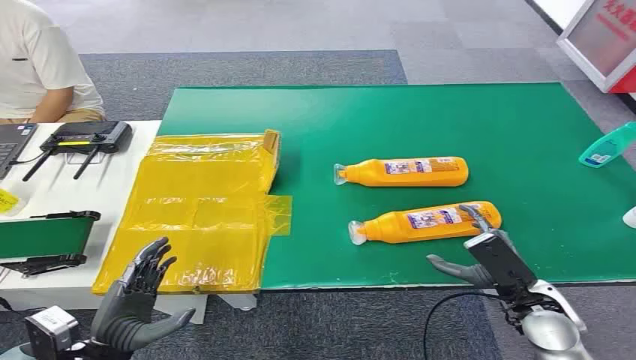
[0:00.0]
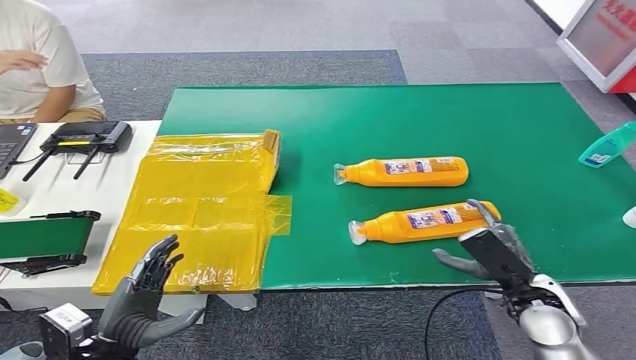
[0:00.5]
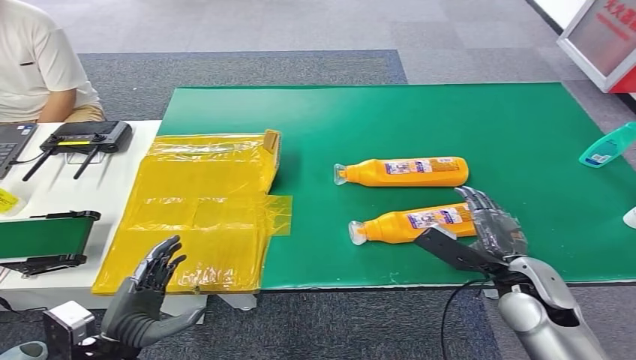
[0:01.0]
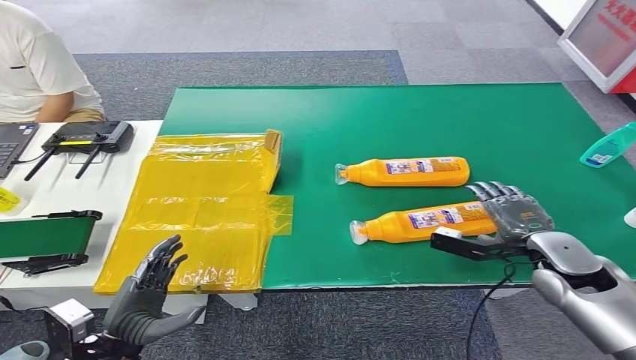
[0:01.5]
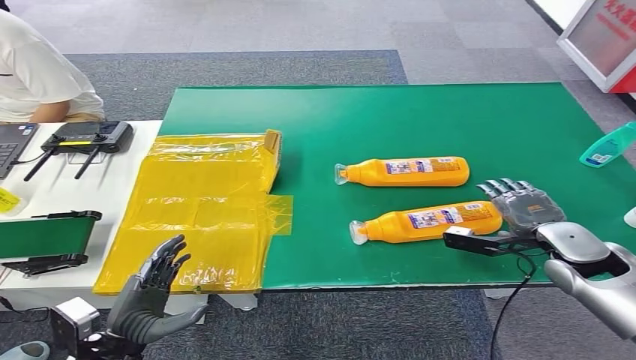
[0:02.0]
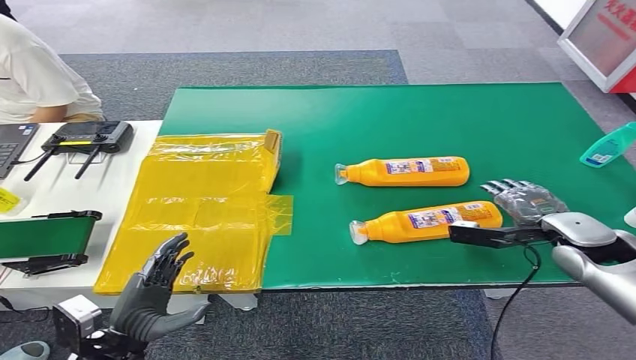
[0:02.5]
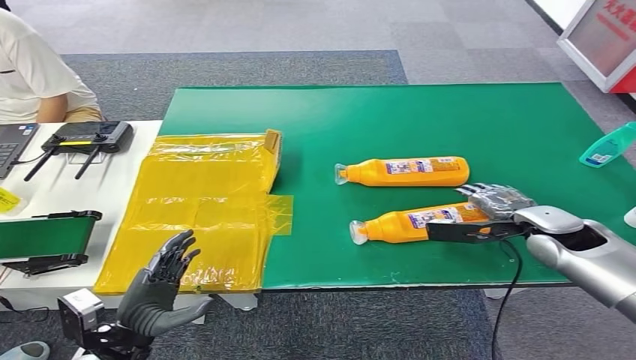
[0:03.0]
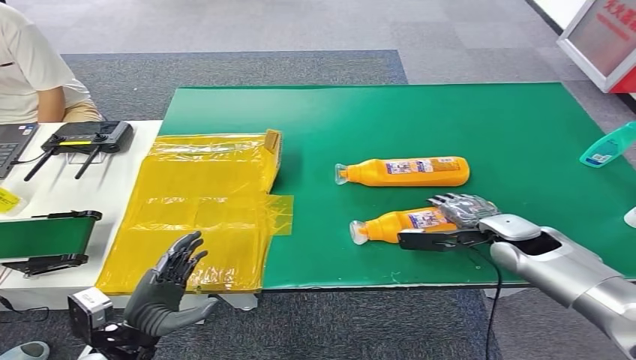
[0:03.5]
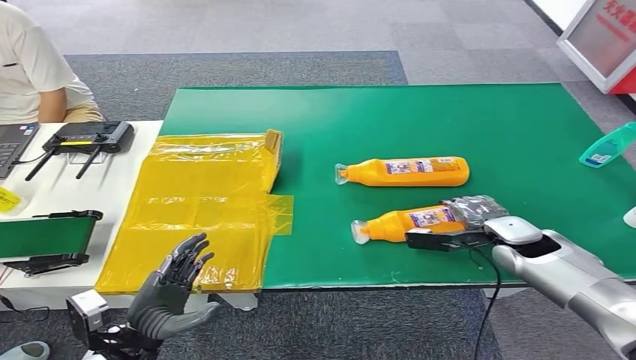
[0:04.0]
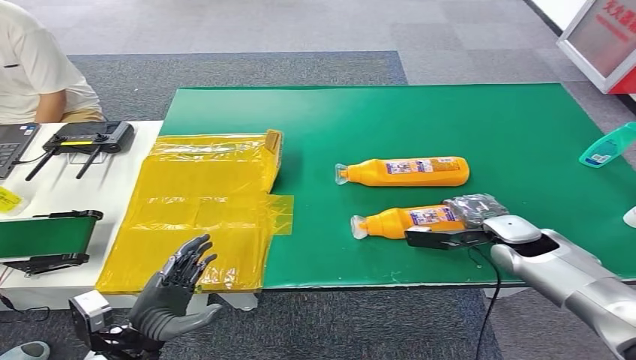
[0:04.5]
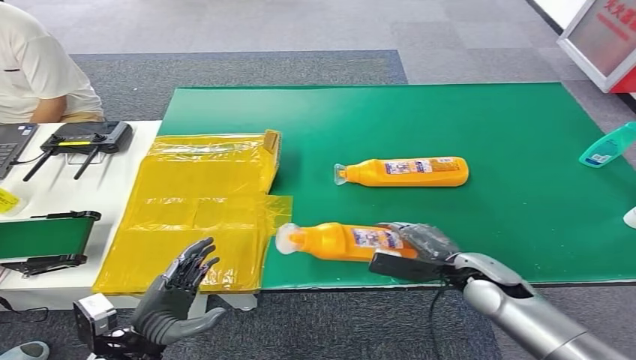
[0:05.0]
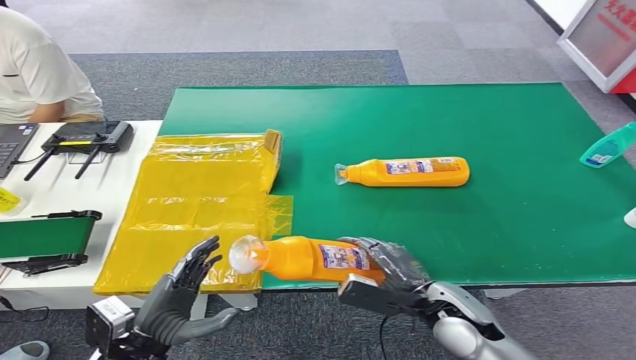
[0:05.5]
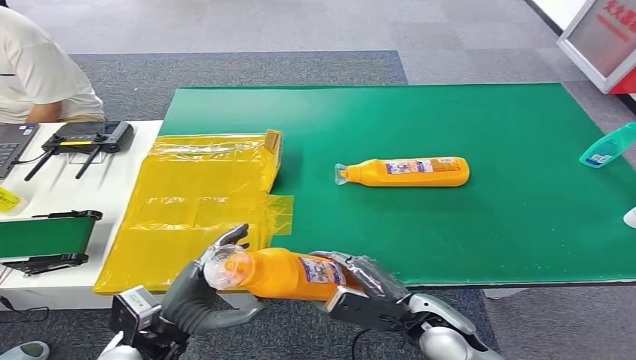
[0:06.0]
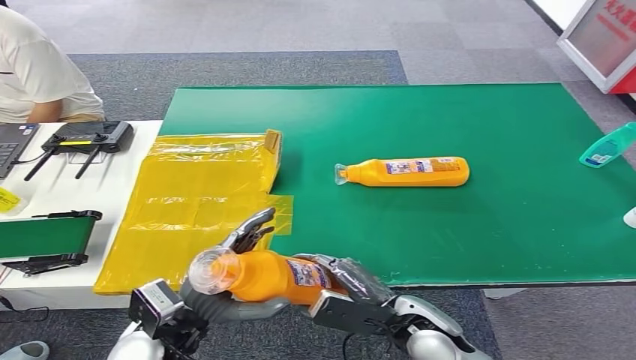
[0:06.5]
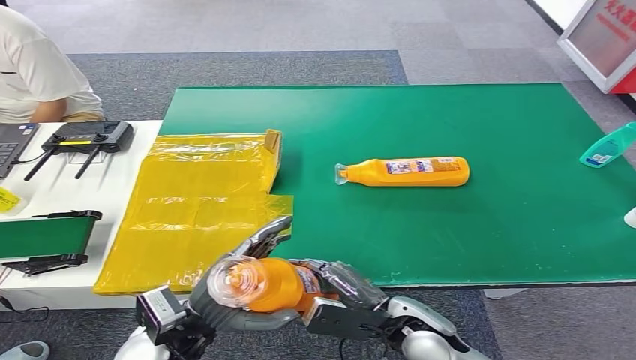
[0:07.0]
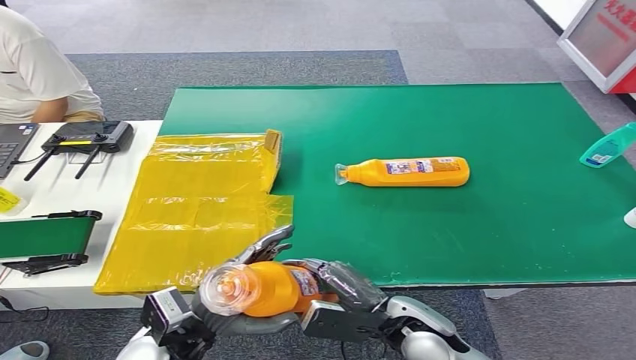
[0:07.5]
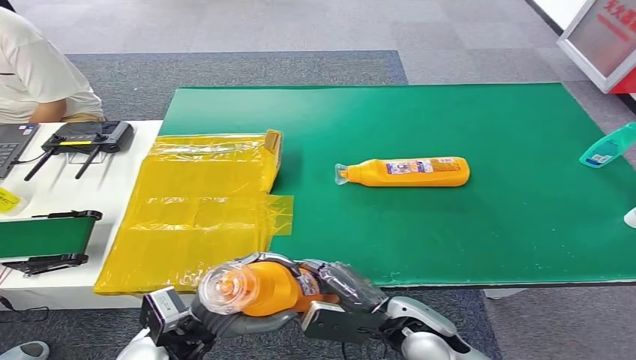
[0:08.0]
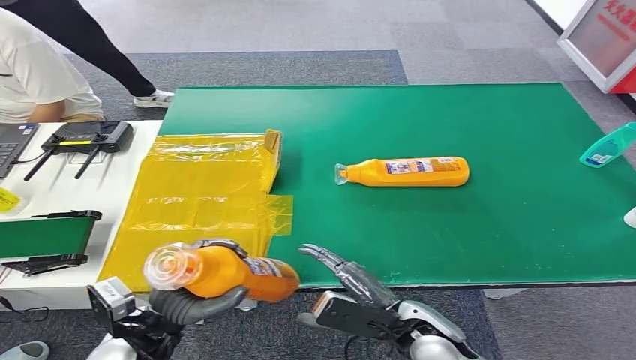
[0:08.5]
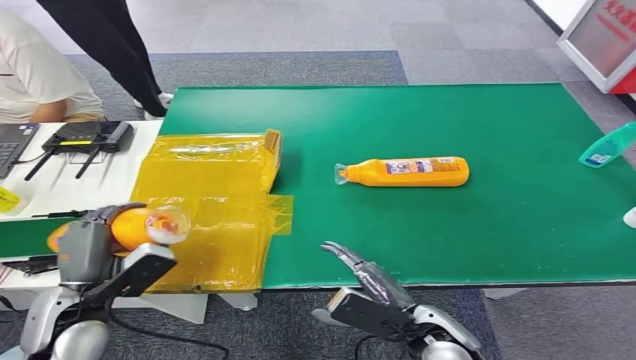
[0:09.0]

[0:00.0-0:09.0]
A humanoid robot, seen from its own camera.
Step, 0:00.0 to 0:06.5: Pick up the bottle from the table.
0:02.0 to 0:04.5: The right hand travels to the left by approximately 5 cm.
0:04.5 to 0:07.0: The left hand travels to the right and upward by roughly 10 cm, while the right hand travels to the left and backward by about 25 cm.
0:07.0 to 0:09.0: The left hand shifts approximately 10 cm to the left.

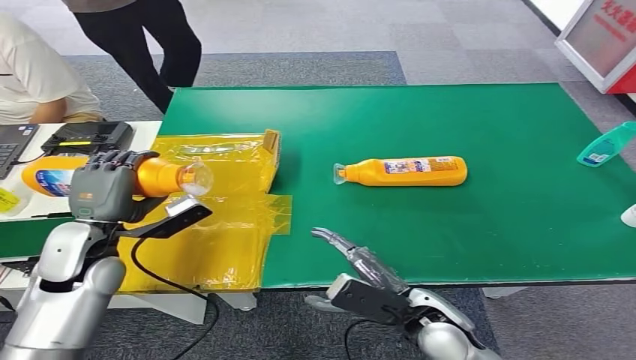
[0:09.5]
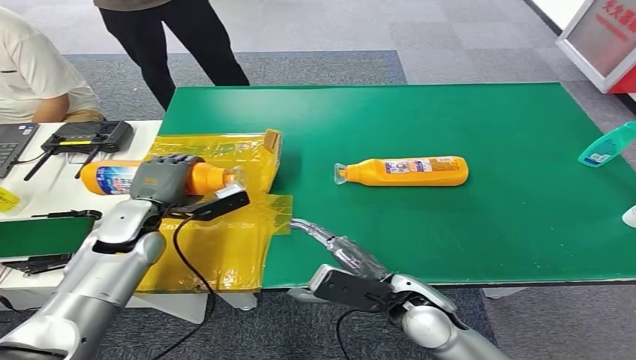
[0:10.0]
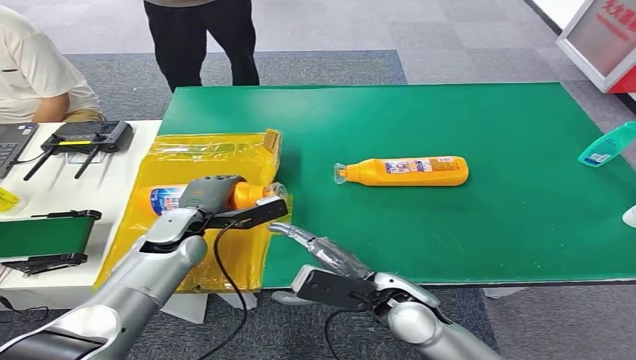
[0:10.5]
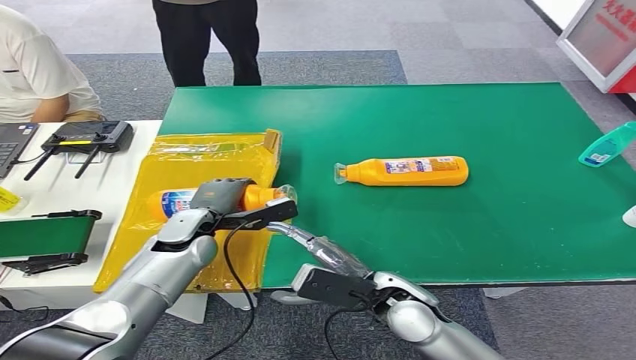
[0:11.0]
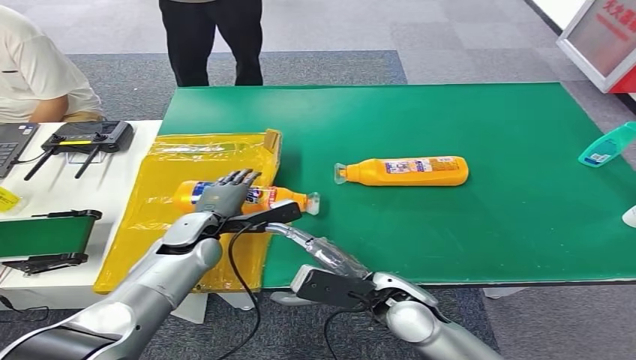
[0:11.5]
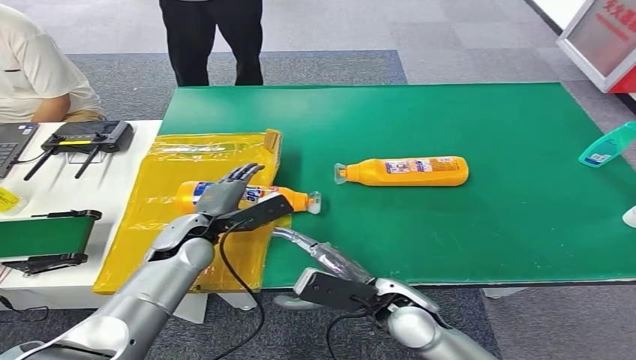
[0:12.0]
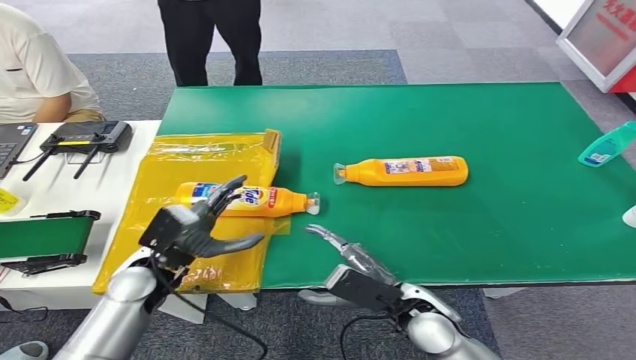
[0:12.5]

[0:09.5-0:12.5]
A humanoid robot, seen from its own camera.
Step, 0:09.5 to 0:12.5: Turn the bottle to the front side.
0:11.0 to 0:12.5: The left hand goes some 10 cm backward.

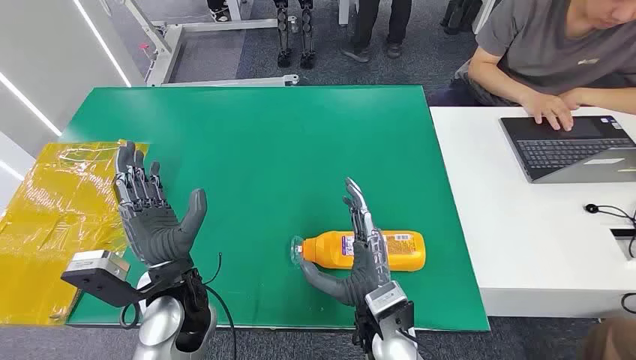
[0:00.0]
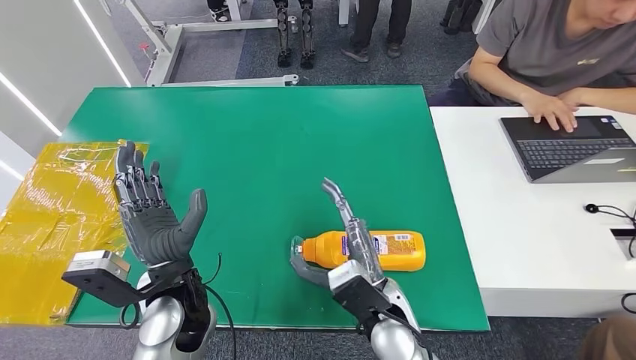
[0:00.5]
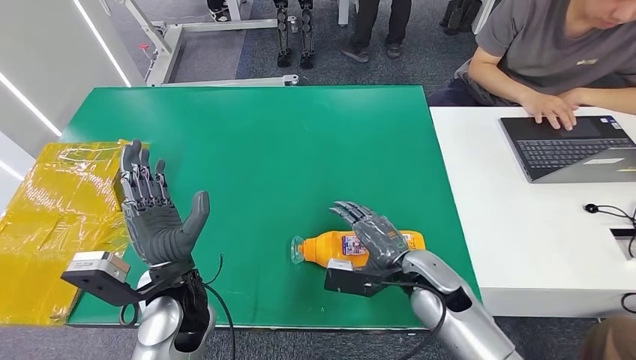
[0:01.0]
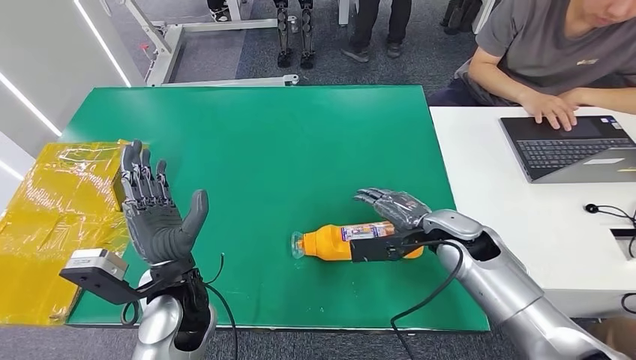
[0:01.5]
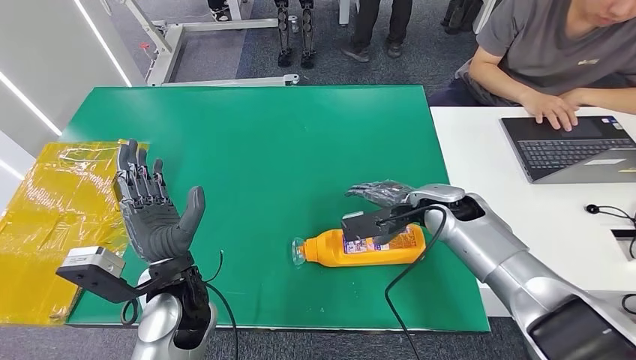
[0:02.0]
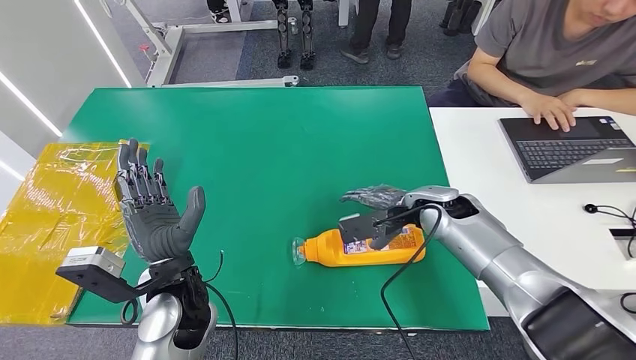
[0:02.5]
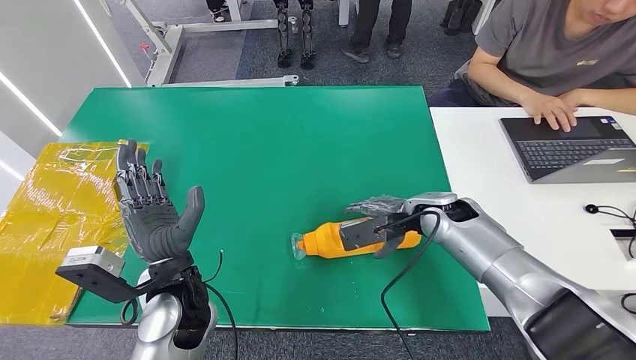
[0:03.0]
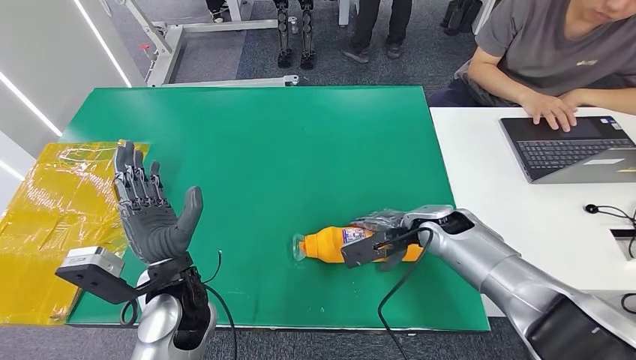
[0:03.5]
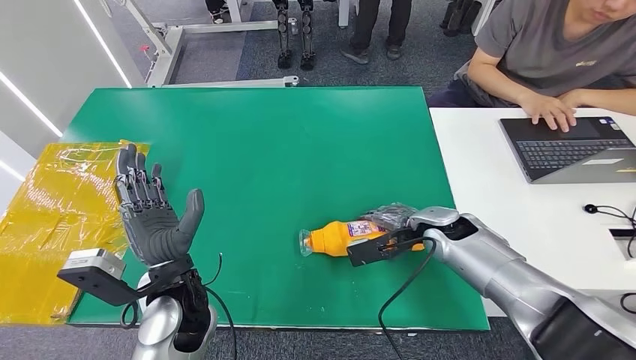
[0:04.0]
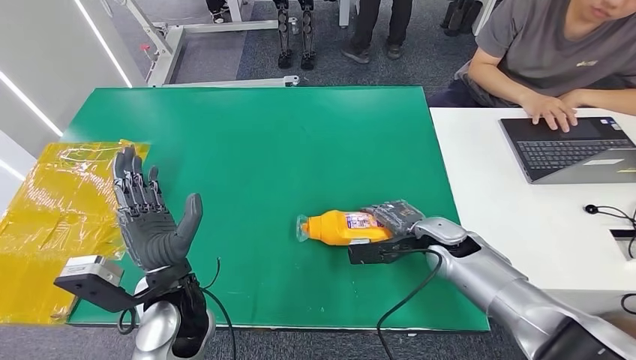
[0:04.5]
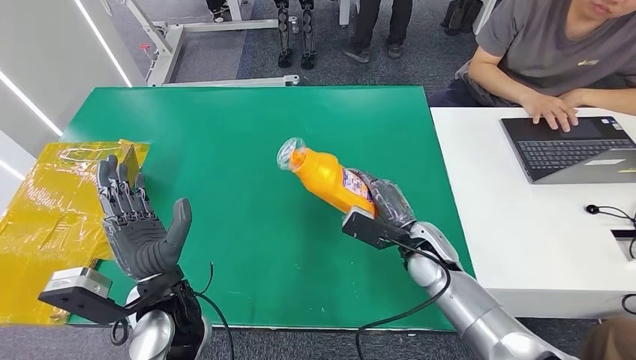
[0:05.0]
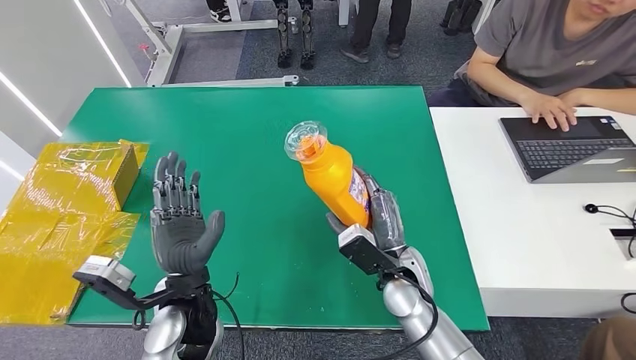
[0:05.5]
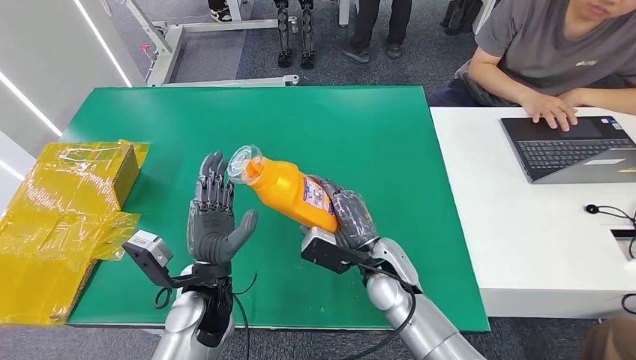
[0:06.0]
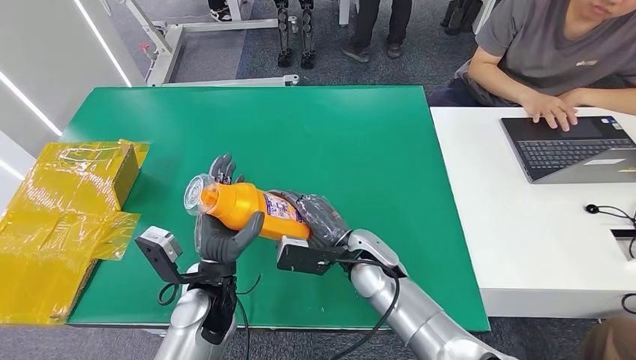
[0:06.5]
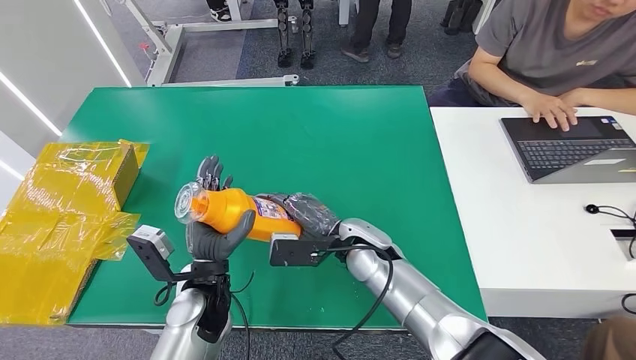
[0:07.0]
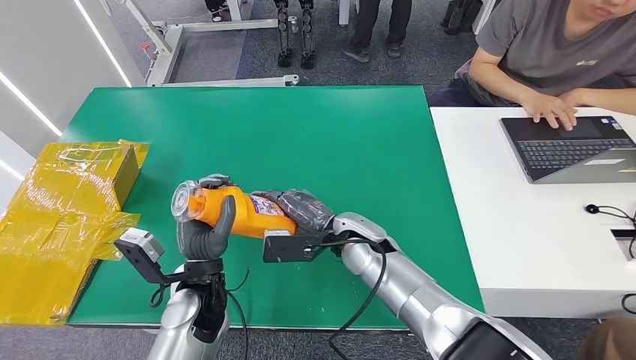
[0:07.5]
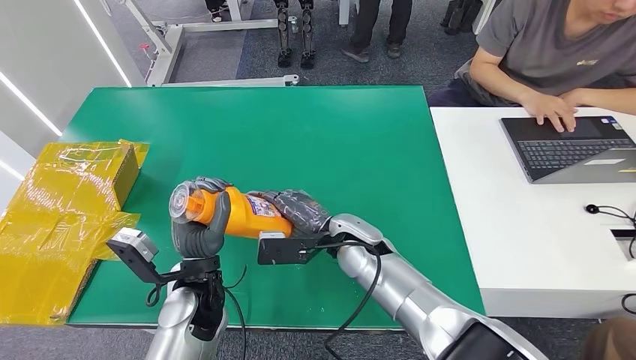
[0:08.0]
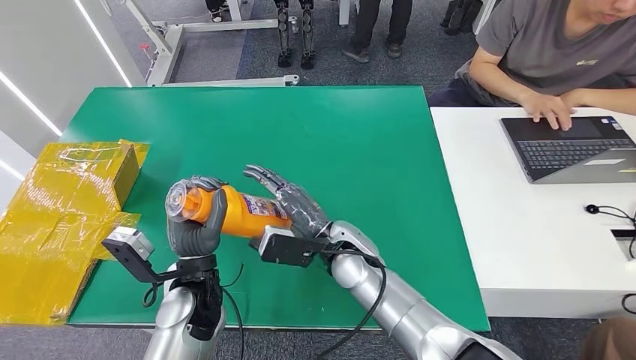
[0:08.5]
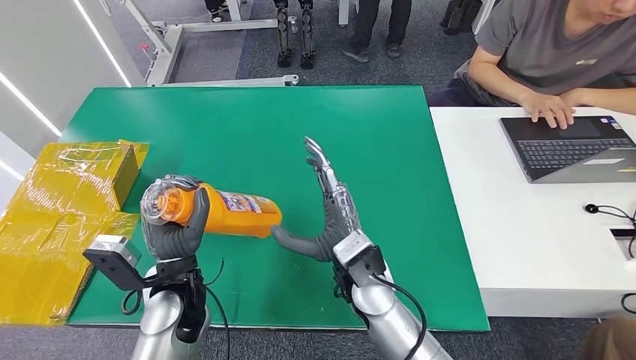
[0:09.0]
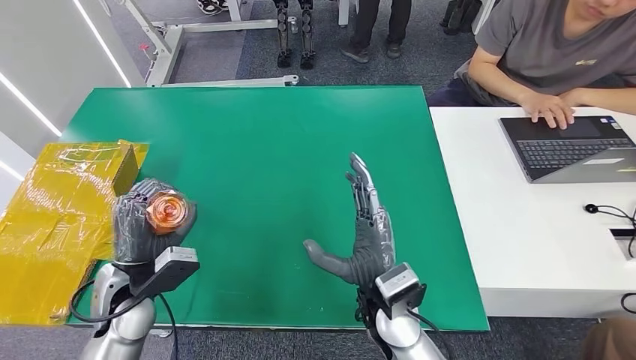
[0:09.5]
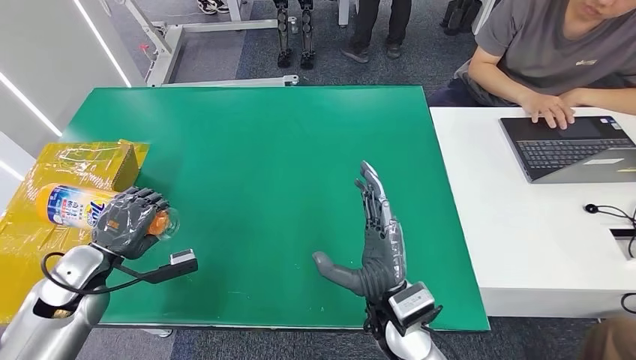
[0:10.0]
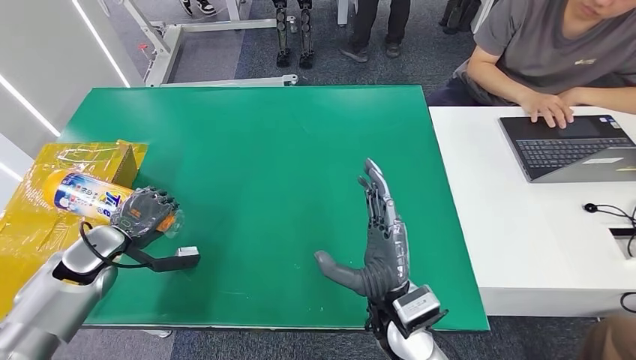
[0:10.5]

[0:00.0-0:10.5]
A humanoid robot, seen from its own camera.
Step, 0:00.0 to 0:05.0: Pick up the bottle from the table.
0:02.0 to 0:04.0: The right hand goes some 5 cm downward.
0:06.5 to 0:08.5: The hands stay close to where they were, moving slightly.
0:08.5 to 0:10.5: The right hand goes approximately 10 cm backward and to the right; the left hand is displaced to the left by approximately 25 cm.
